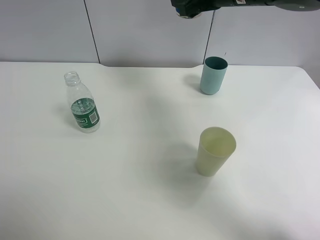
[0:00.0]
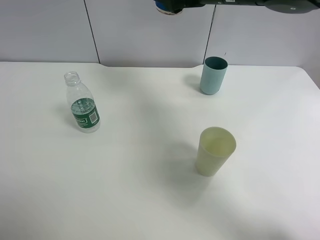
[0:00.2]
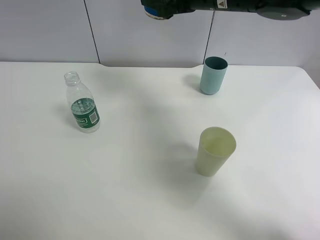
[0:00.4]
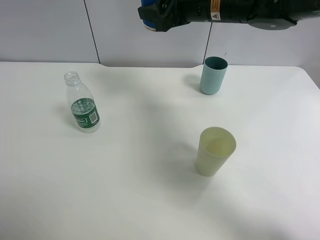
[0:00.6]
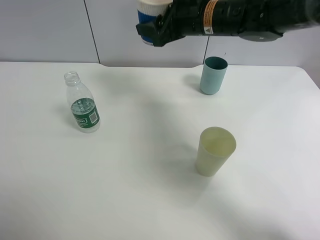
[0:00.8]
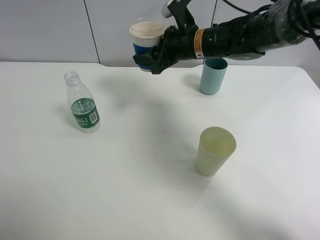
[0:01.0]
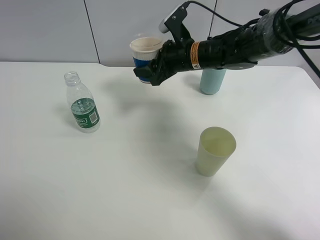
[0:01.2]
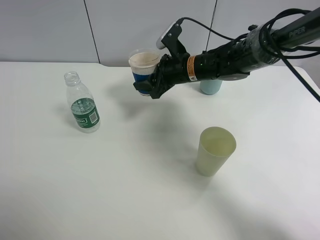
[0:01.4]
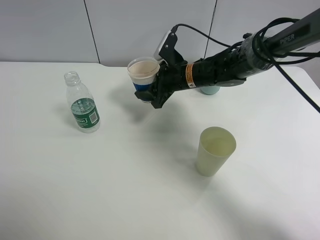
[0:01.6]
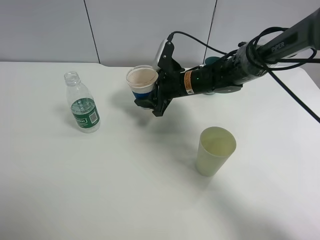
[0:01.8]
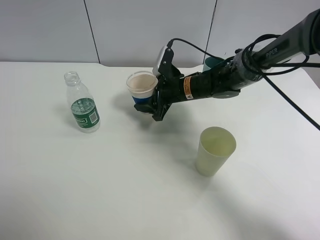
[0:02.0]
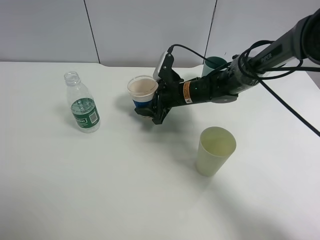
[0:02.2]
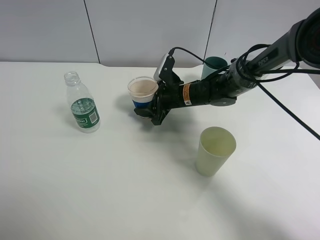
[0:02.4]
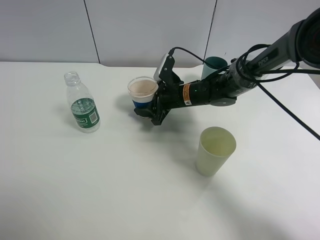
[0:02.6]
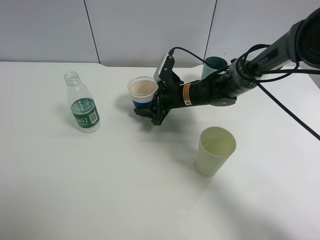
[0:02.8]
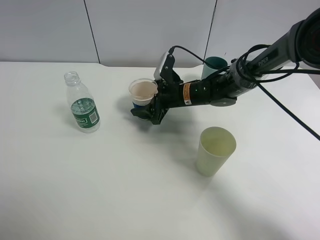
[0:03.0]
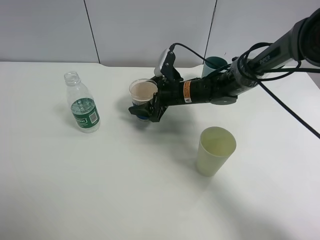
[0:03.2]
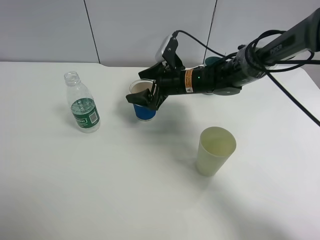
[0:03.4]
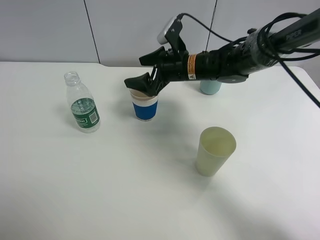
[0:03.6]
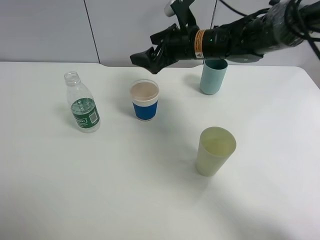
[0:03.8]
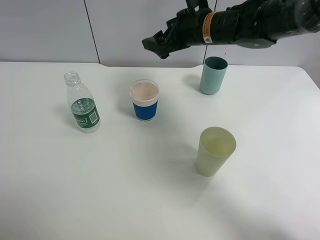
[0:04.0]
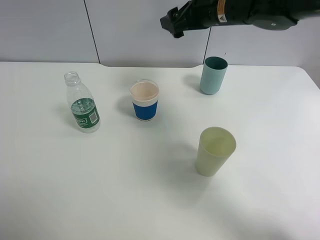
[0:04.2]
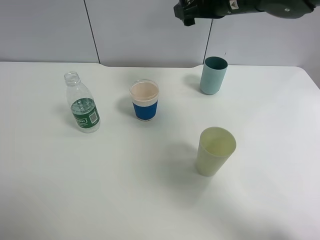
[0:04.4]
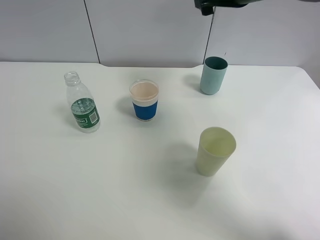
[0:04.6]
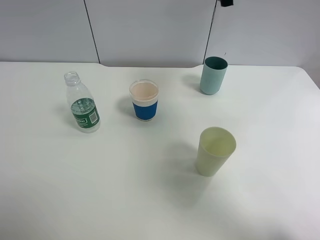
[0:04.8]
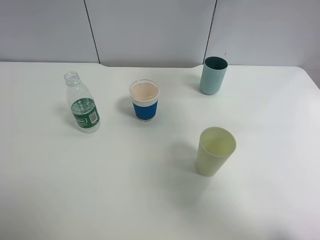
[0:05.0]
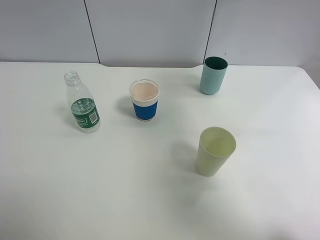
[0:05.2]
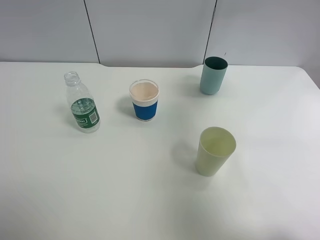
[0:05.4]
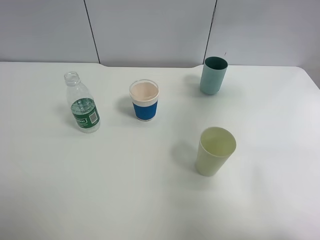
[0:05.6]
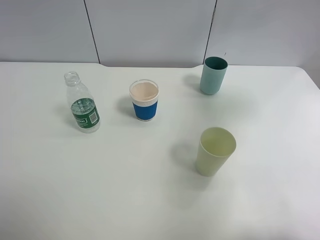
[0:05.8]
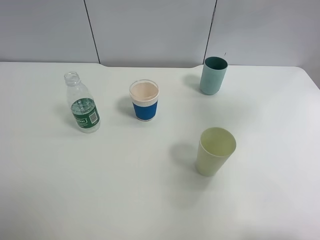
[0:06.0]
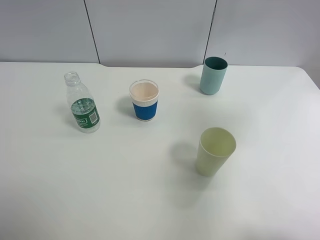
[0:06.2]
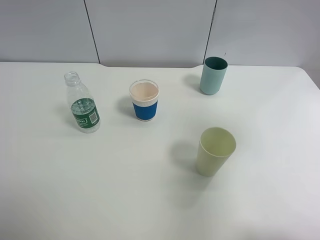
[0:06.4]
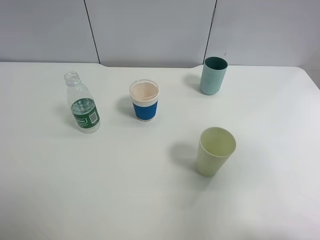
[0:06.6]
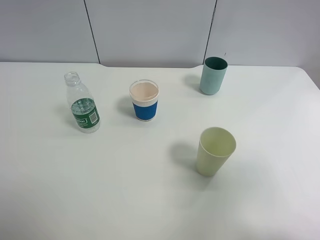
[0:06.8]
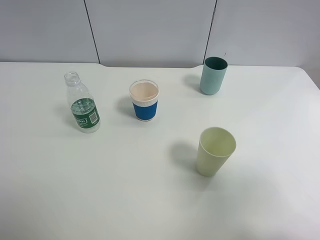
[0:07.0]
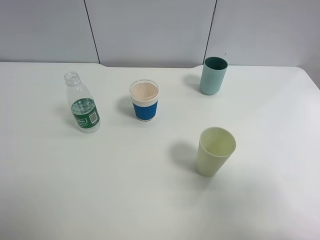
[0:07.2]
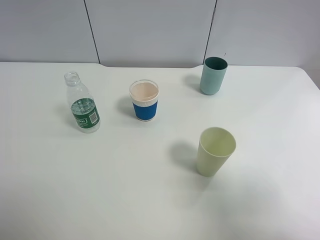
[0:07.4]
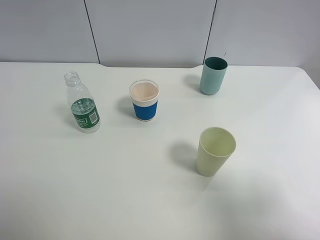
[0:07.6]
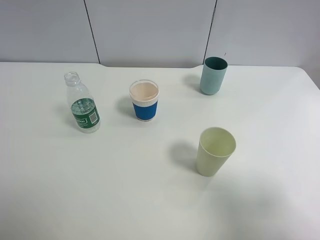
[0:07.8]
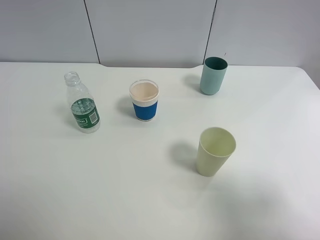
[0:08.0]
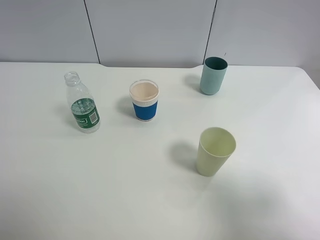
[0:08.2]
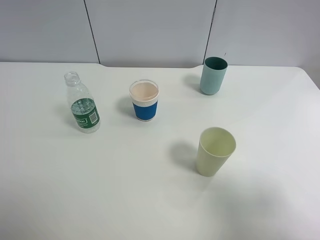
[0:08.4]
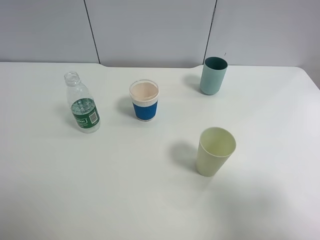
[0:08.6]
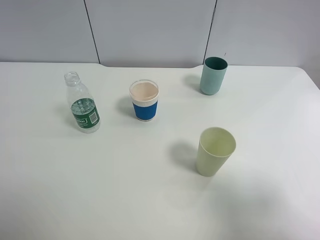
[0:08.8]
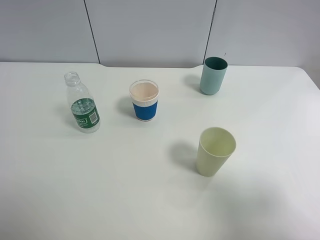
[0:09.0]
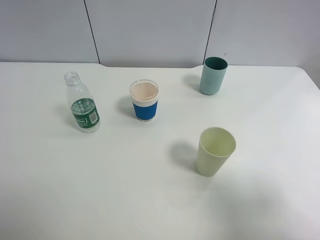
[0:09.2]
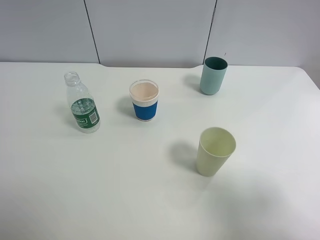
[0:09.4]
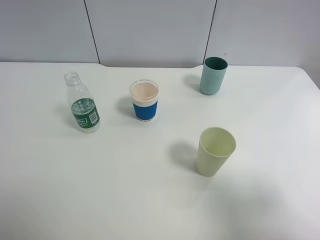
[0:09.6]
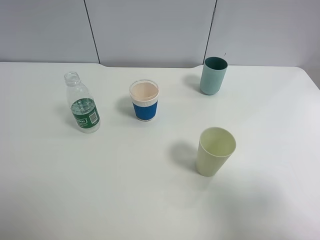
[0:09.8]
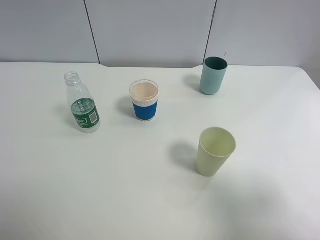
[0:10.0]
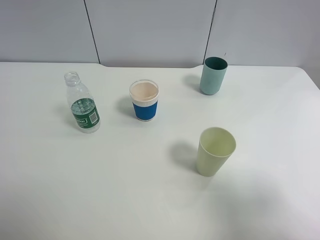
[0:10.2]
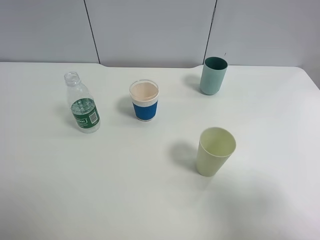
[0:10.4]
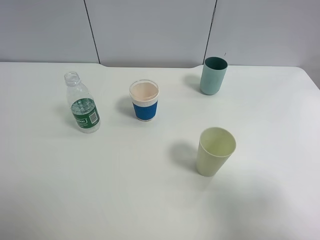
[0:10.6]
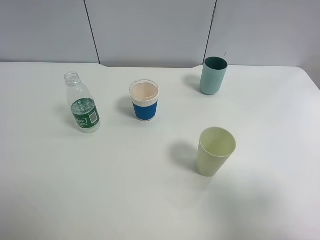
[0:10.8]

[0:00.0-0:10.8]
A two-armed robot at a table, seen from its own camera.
Task of the whole recording: use a clamp to hold the bottle of the drink, pour the beverage into a random cup, then clamp the cup containing the drink and pour the drink into another random cup.
Step, 0:00.0 to 0:03.6: Place the paper cup on the table with right gripper.
0:00.0 to 0:01.6: The right gripper moves downward, about 20 cm.
0:01.6 to 0:03.0: The right gripper opens.
0:03.0 to 0:04.6: The right gripper goes approximately 25 cm upward.
0:04.6 to 0:06.2: The right gripper shifts some 30 cm backward and to the right.
0:06.2 to 0:07.8: The right gripper heads backward and downward, covering approximately 20 cm.
0:07.8 to 0:10.8: Both grippers stay put.
